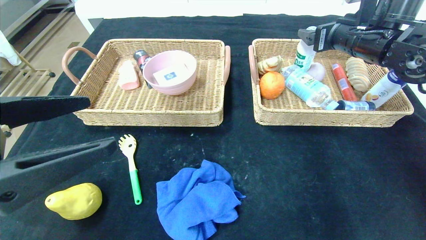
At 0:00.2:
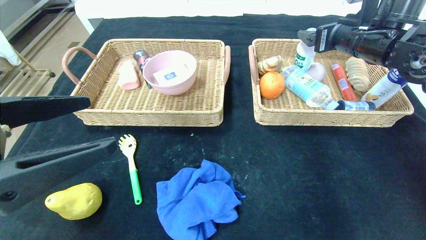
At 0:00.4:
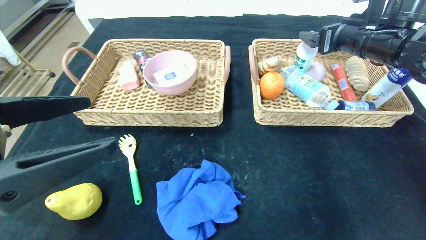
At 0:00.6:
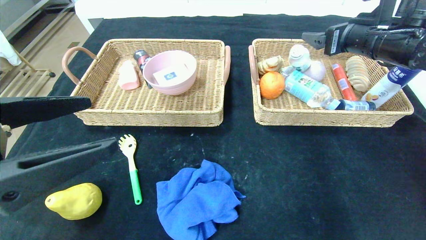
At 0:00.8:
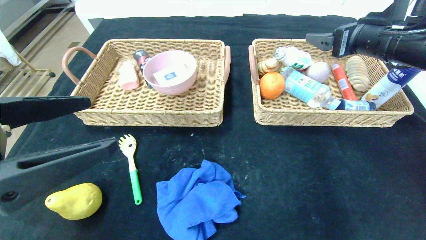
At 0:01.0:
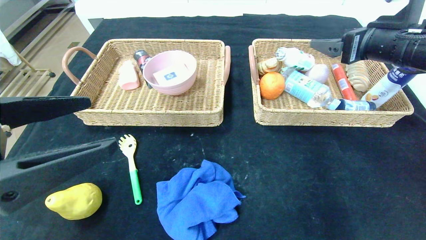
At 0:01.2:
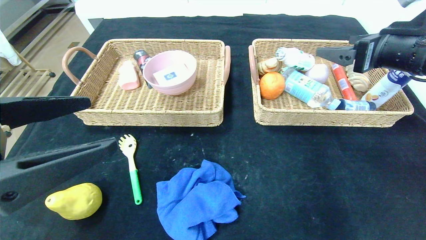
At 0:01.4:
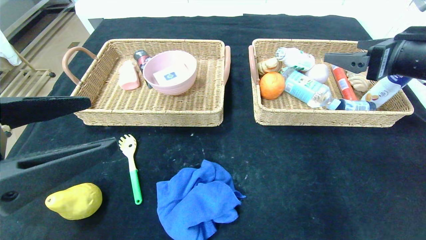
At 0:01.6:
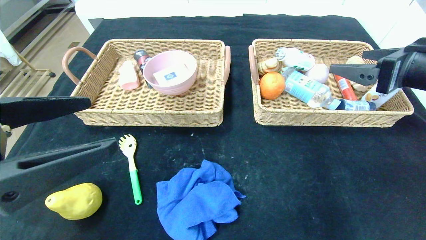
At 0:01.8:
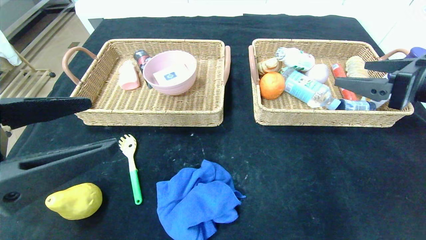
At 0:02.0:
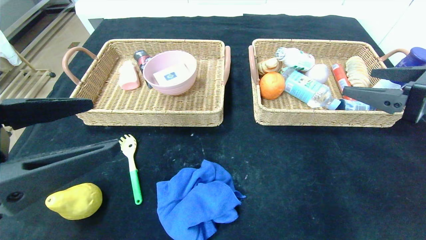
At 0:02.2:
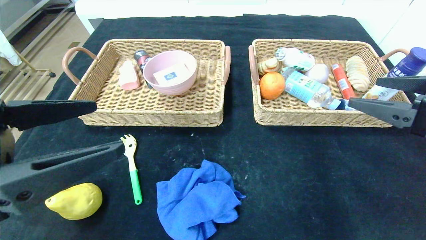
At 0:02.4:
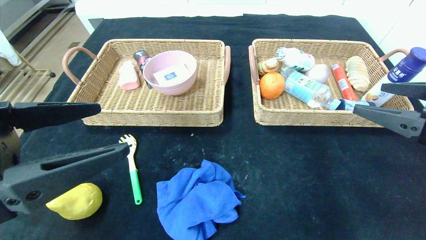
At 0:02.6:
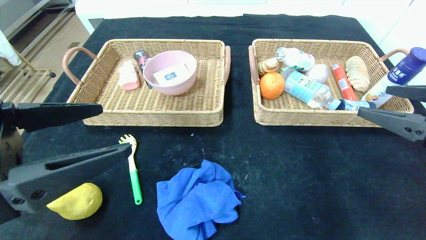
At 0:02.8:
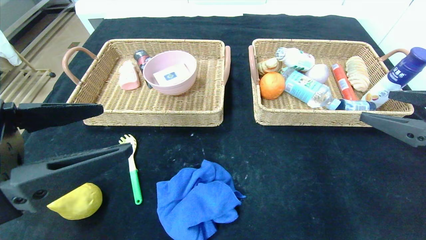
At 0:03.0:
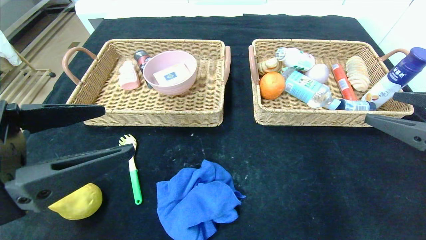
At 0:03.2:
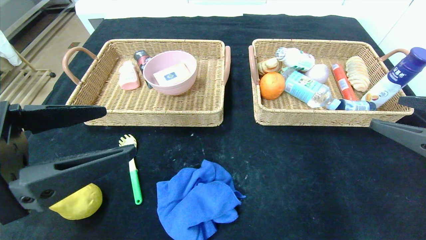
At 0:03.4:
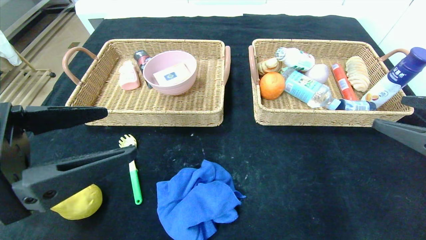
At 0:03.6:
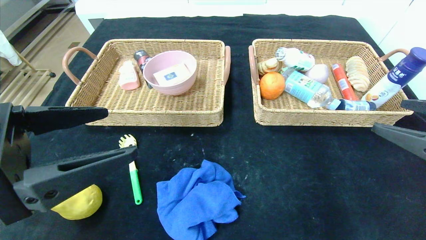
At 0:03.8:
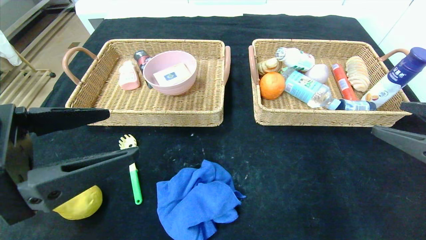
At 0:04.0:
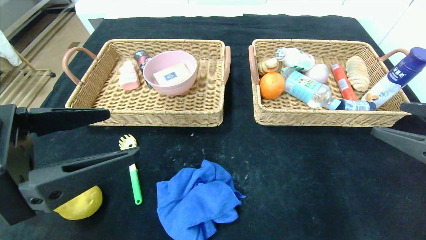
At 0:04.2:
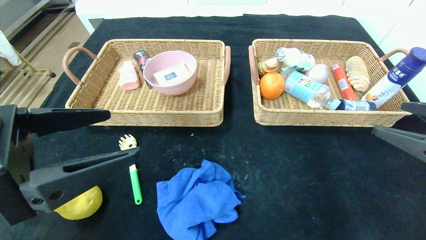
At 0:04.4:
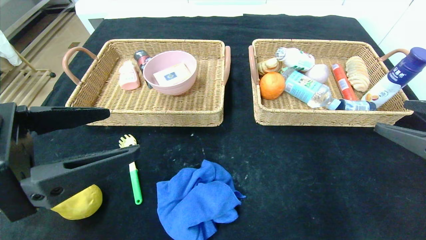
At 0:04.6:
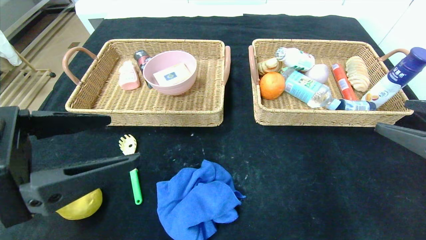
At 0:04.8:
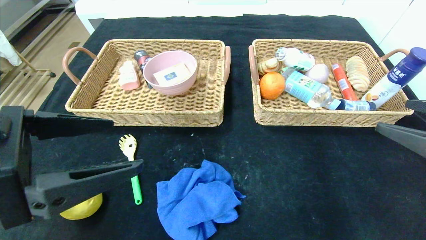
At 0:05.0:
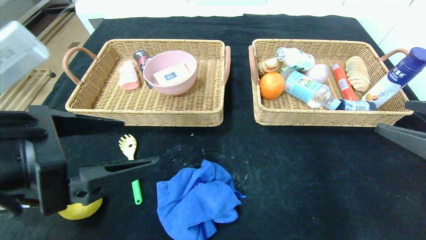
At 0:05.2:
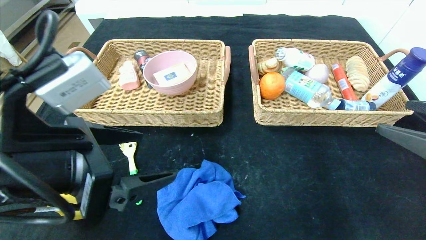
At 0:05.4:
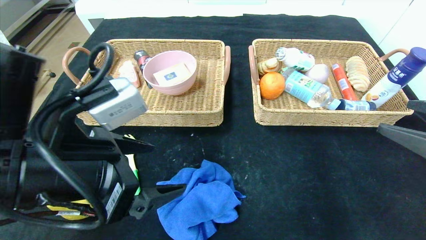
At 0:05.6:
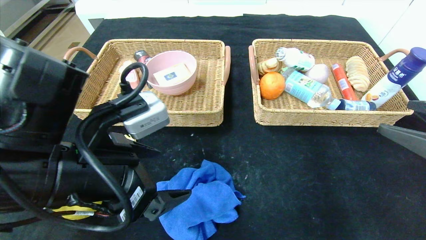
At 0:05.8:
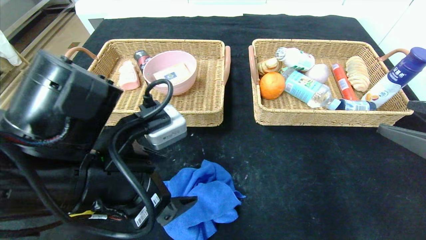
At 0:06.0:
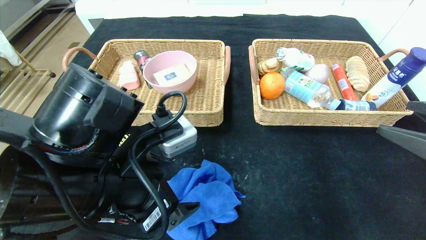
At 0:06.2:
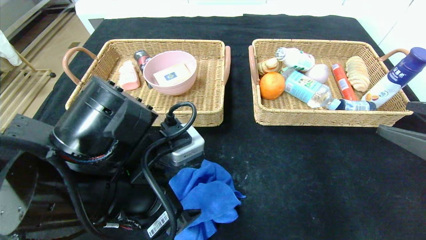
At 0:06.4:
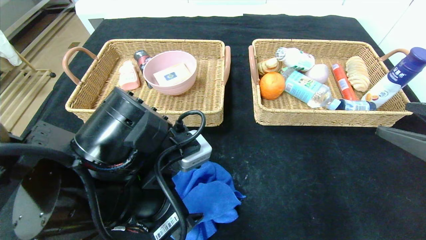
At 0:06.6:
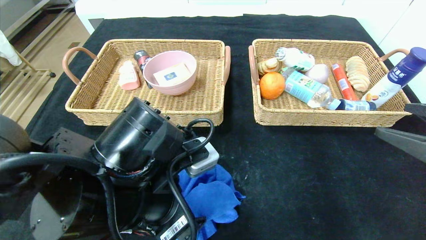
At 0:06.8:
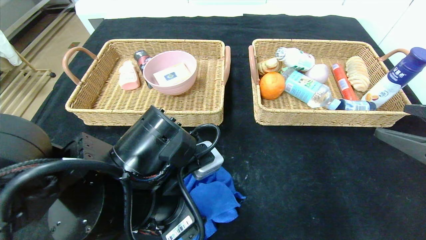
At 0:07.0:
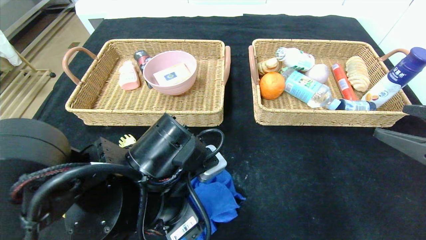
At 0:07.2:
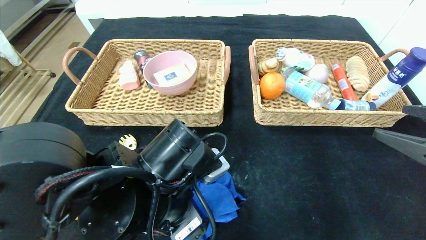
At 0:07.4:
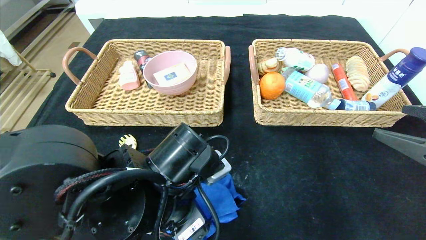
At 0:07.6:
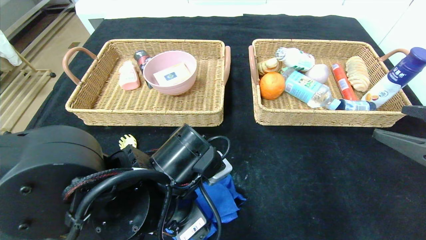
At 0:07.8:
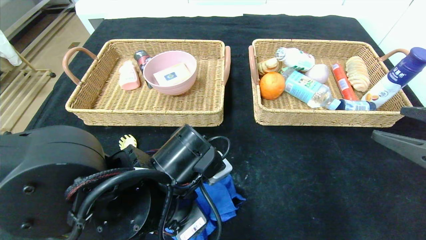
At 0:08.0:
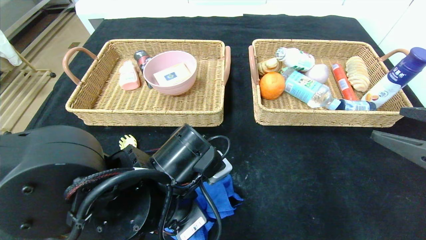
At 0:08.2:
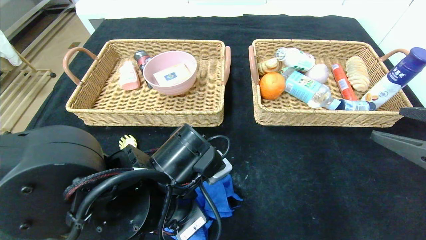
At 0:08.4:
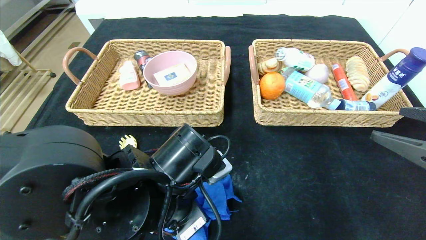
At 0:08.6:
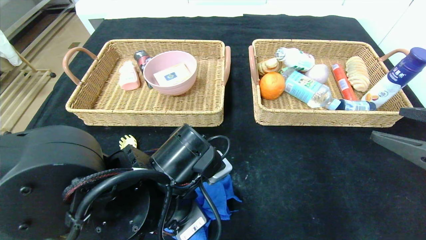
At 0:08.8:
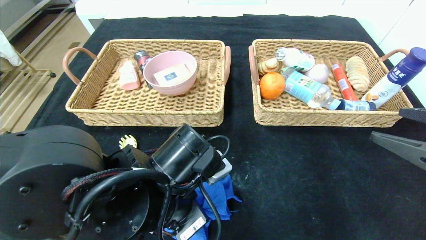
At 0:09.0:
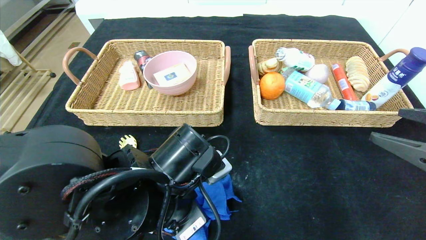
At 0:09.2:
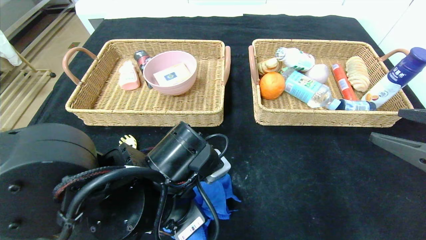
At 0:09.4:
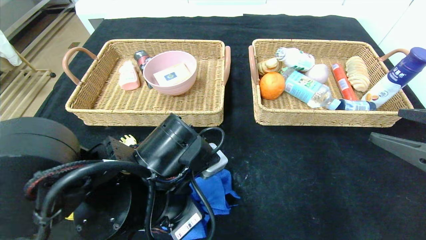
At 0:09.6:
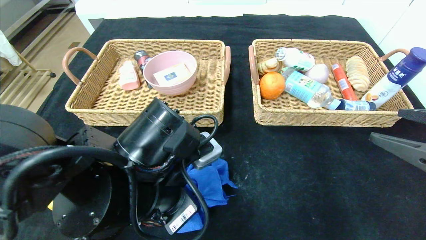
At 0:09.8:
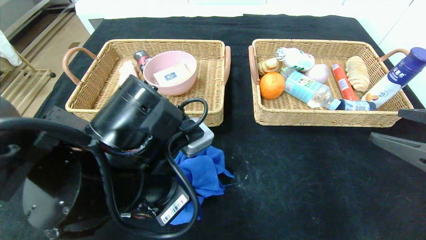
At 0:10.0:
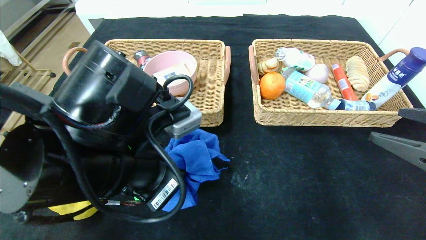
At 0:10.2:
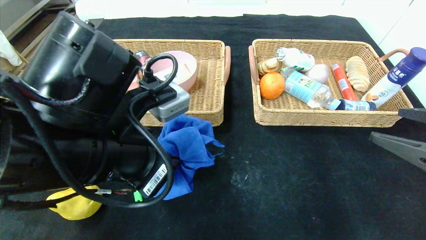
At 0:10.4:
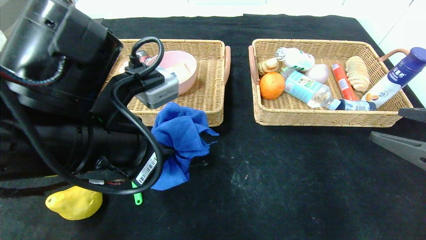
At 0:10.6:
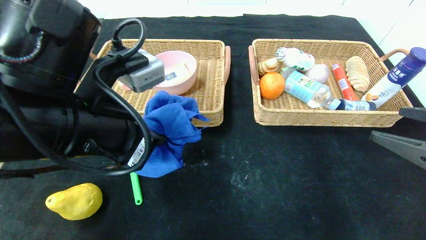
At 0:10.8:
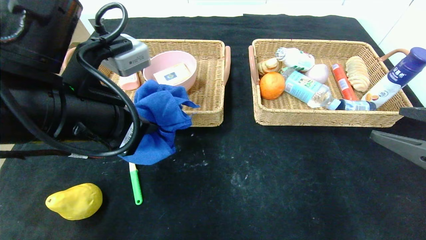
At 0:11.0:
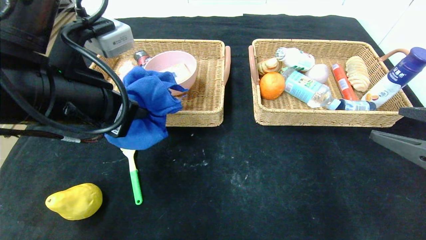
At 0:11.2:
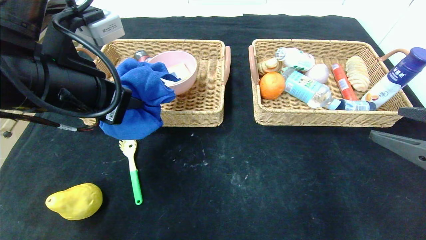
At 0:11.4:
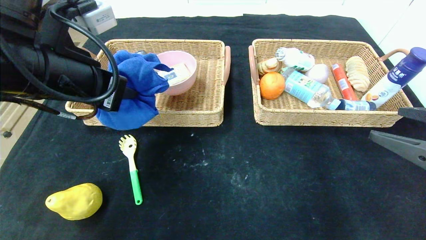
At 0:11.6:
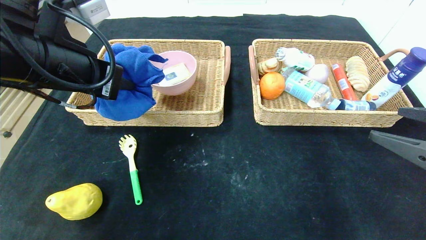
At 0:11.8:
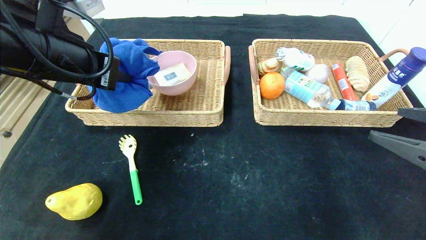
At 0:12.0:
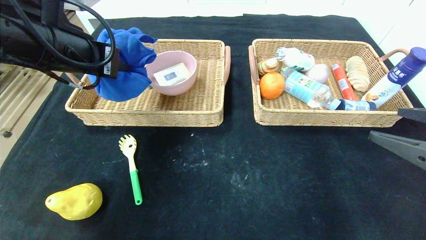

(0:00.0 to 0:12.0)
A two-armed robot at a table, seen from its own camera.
0:00.0 - 0:01.6: The right gripper is displaced backward by some 15 cm.
0:01.6 - 0:03.0: The right gripper shifts some 10 cm backward.
0:03.0 - 0:04.4: There are only small adjustments of the grippers.
0:04.4 - 0:06.0: The left gripper moves to the right and forward, roughly 10 cm.
0:06.0 - 0:07.6: The left gripper moves downward, roughly 5 cm.
0:07.6 - 0:09.0: The left gripper closes its fingers.
0:09.0 - 0:10.4: The left gripper goes approximately 10 cm upward and to the left.
0:10.4 - 0:12.0: The left gripper goes roughly 15 cm forward, to the left and upward.

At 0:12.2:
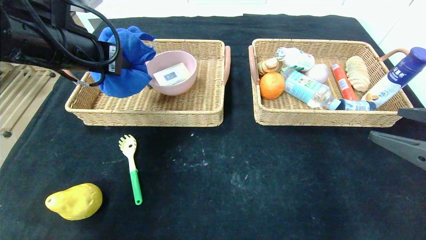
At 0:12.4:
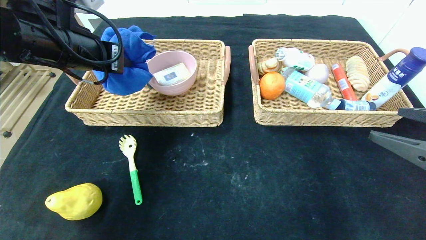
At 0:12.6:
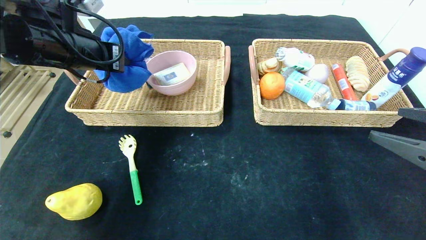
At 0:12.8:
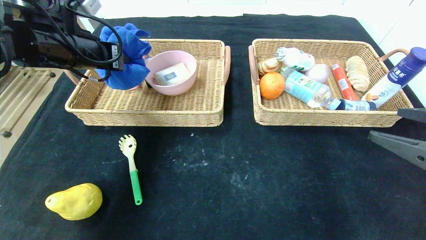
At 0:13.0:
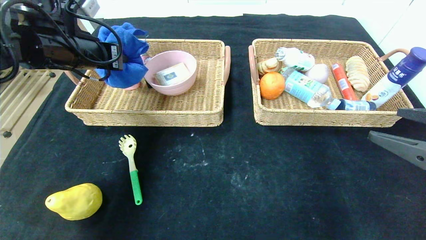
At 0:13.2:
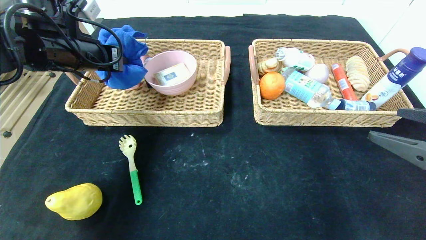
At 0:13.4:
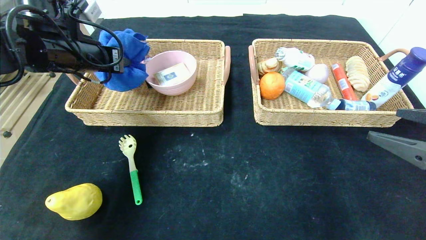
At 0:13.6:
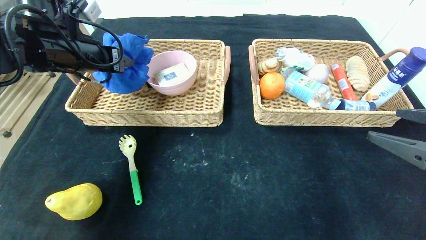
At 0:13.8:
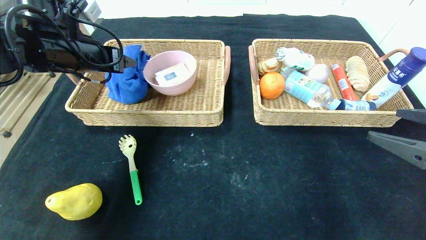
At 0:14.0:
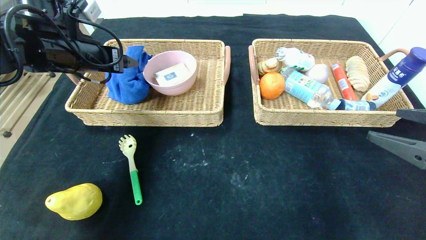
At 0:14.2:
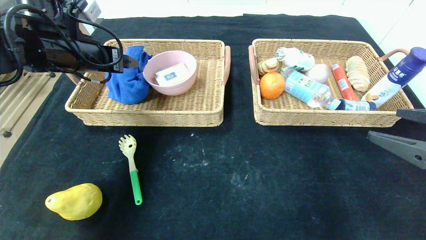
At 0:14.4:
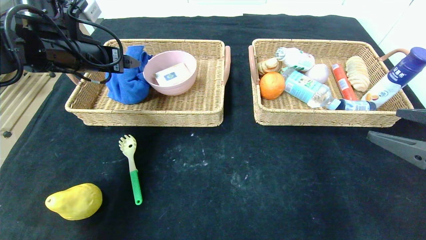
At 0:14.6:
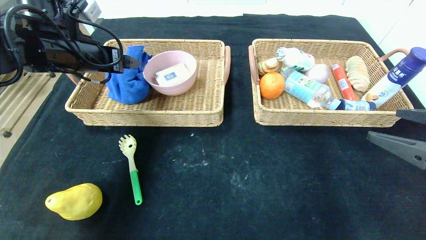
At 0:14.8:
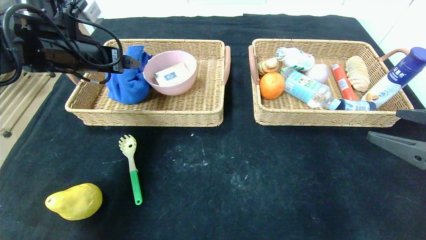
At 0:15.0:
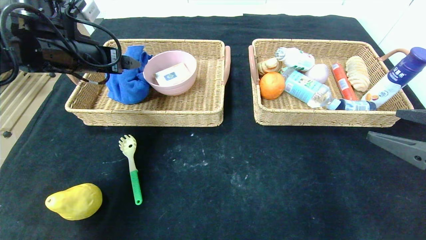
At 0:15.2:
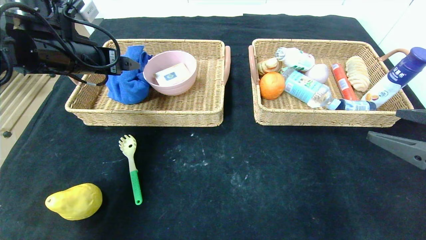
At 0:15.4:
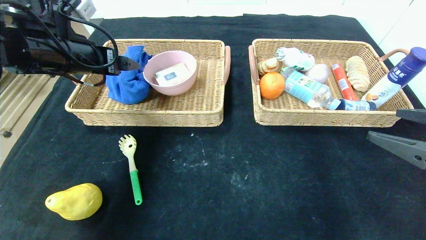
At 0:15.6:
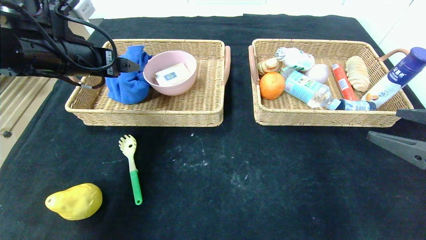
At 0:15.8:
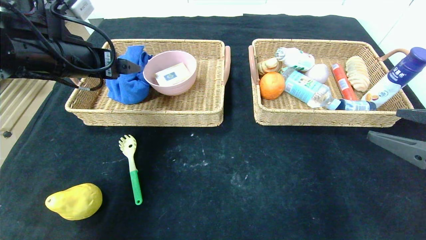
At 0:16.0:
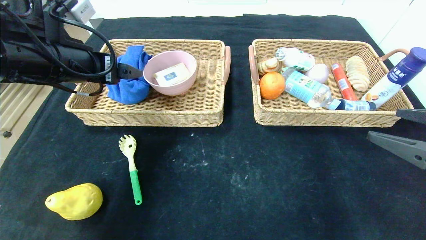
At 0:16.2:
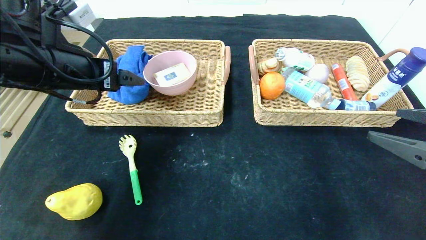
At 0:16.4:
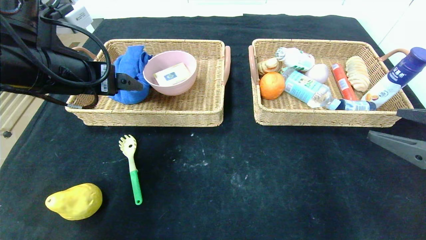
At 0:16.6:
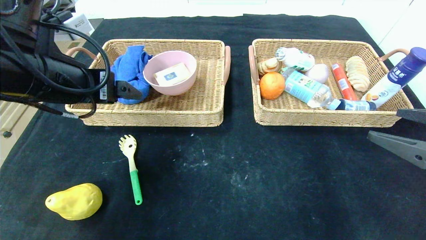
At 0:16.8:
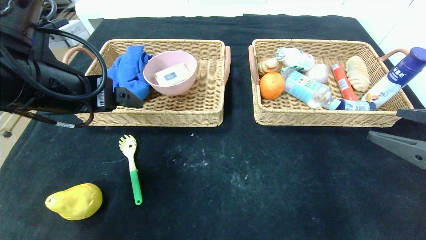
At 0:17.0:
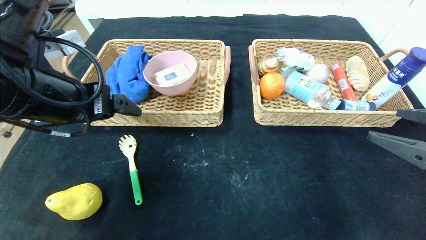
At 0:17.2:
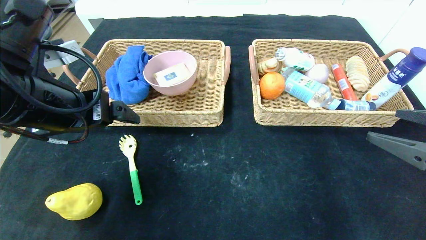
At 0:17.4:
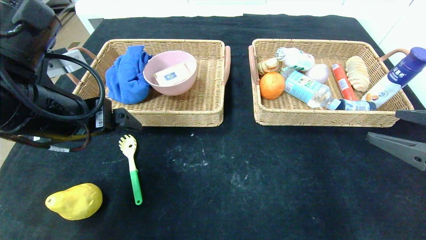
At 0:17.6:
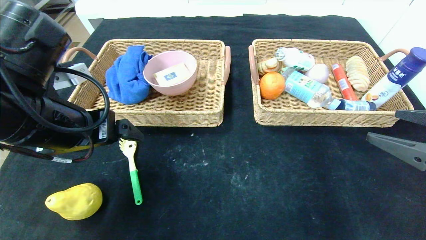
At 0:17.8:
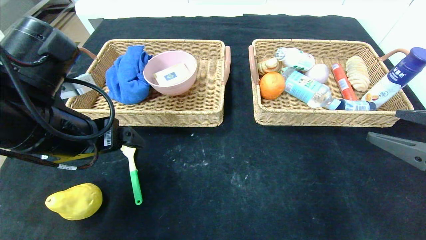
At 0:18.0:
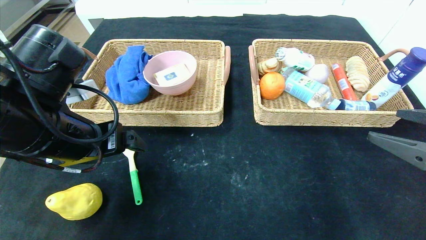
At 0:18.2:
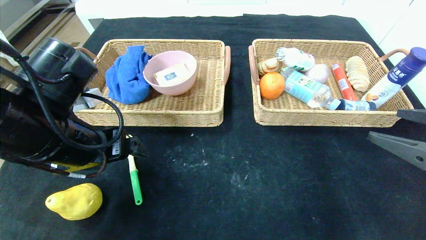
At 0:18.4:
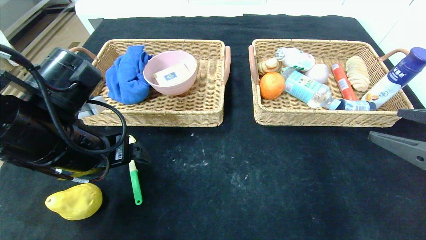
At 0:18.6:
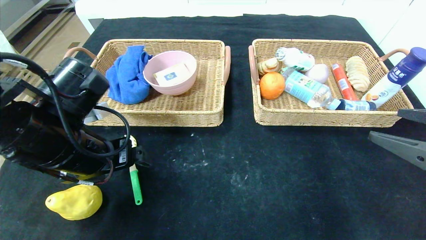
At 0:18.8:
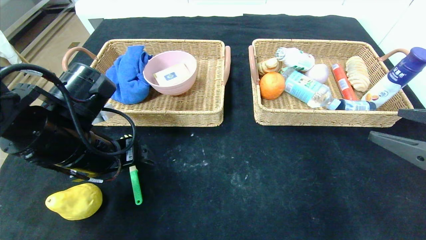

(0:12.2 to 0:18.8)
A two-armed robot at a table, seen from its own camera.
Step, 0:12.2 - 0:14.2: Grasp the blue towel and put it in the left basket.
0:12.2 - 0:13.8: The left gripper shifts approximately 5 cm forward, and opens up.
0:13.8 - 0:15.4: The grippers make only small movements.
0:15.4 - 0:17.2: The left gripper goes some 10 cm backward.
0:17.2 - 0:18.8: The left gripper heads downward, covering about 10 cm.
